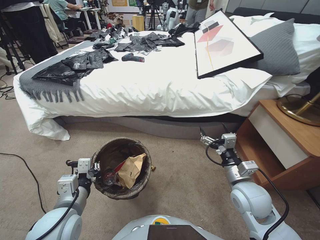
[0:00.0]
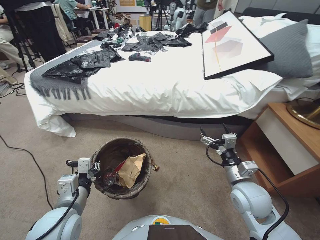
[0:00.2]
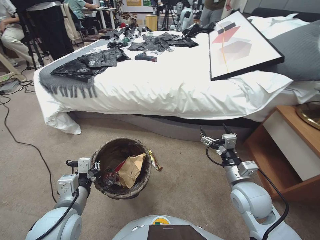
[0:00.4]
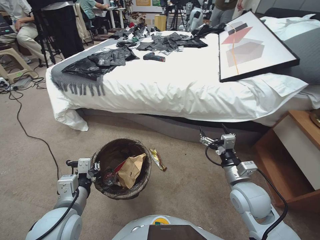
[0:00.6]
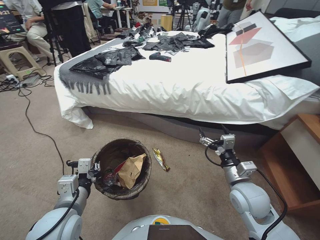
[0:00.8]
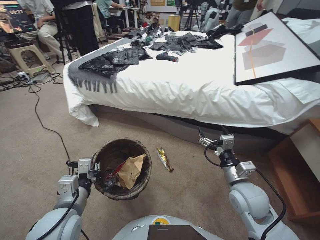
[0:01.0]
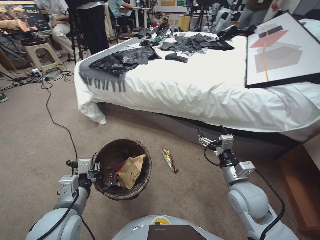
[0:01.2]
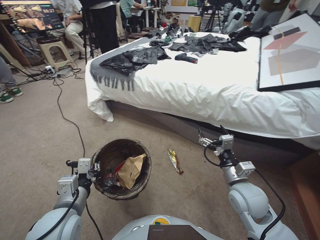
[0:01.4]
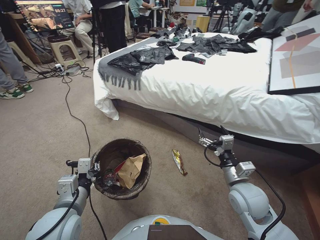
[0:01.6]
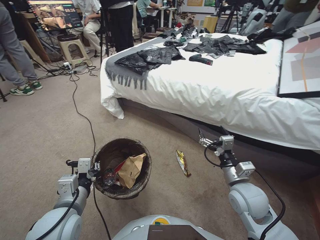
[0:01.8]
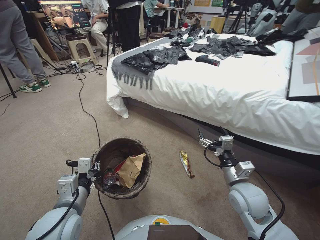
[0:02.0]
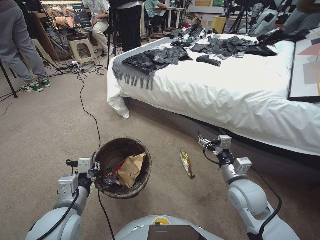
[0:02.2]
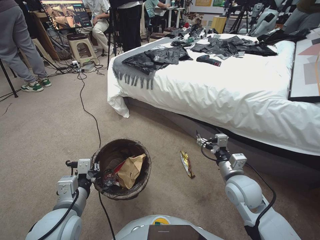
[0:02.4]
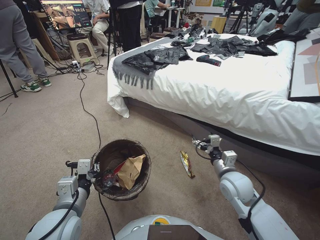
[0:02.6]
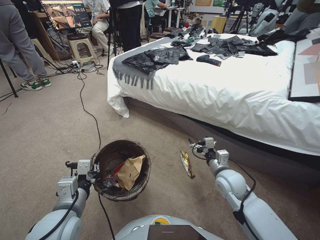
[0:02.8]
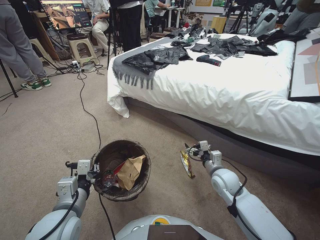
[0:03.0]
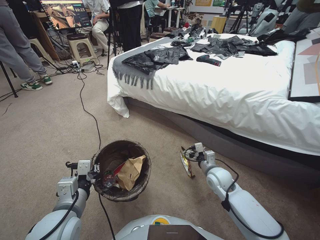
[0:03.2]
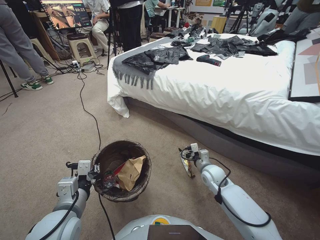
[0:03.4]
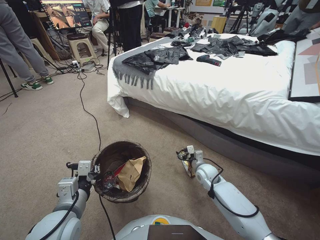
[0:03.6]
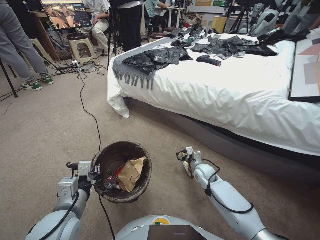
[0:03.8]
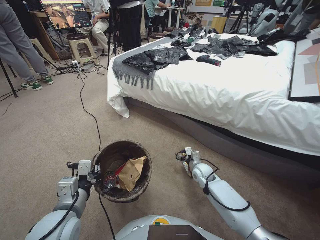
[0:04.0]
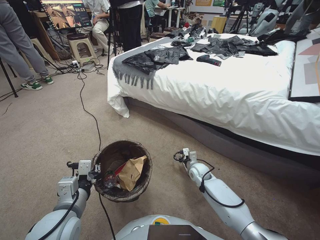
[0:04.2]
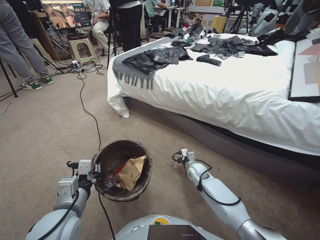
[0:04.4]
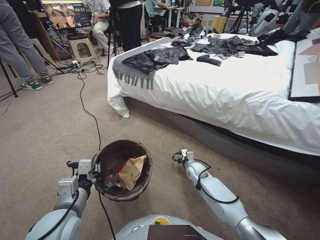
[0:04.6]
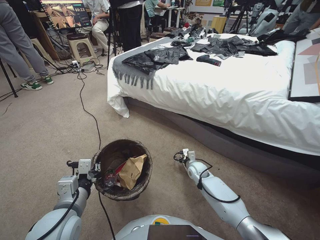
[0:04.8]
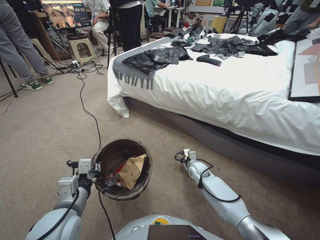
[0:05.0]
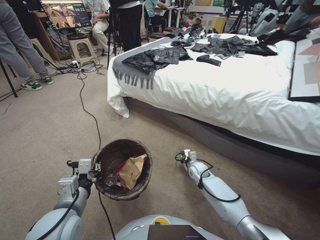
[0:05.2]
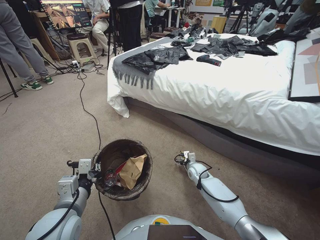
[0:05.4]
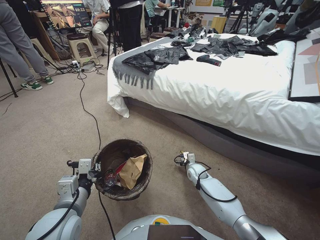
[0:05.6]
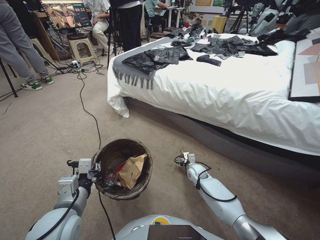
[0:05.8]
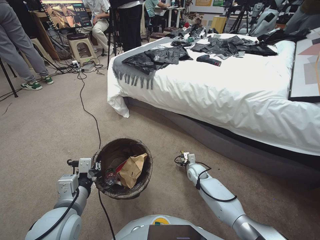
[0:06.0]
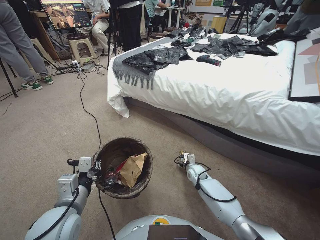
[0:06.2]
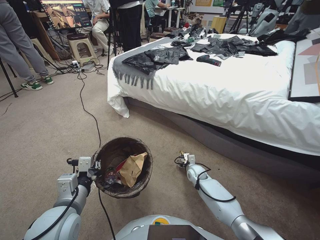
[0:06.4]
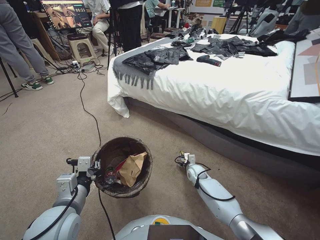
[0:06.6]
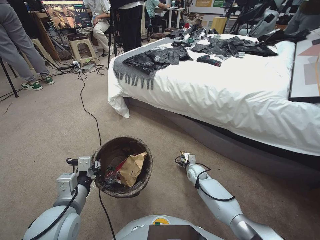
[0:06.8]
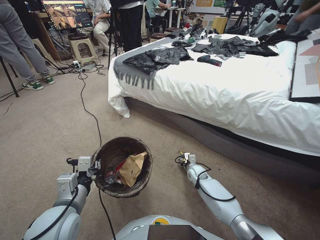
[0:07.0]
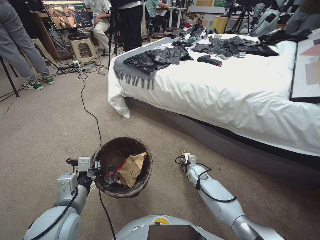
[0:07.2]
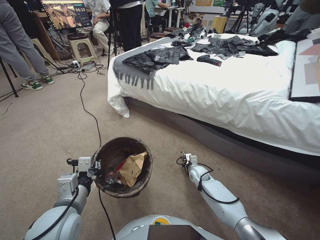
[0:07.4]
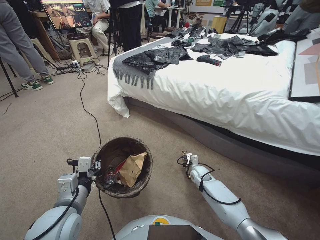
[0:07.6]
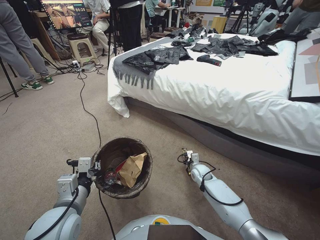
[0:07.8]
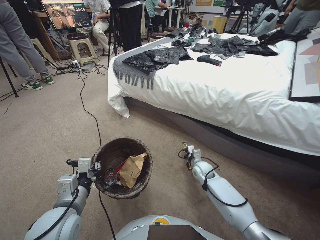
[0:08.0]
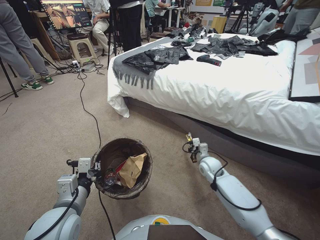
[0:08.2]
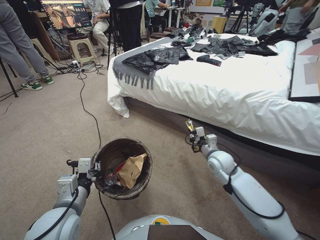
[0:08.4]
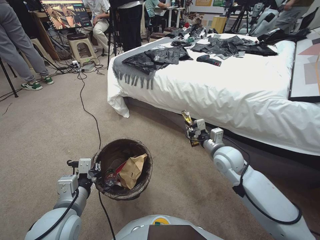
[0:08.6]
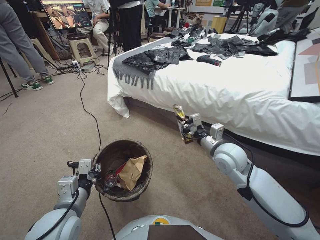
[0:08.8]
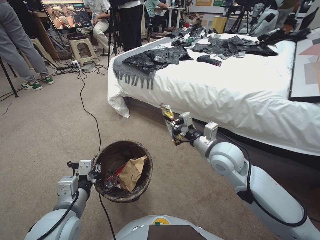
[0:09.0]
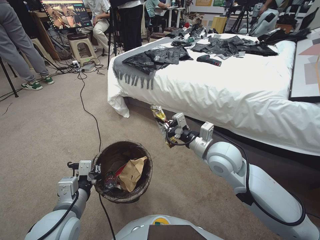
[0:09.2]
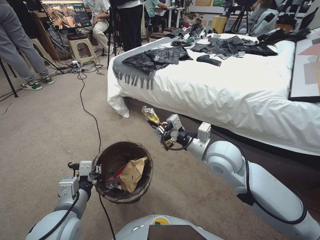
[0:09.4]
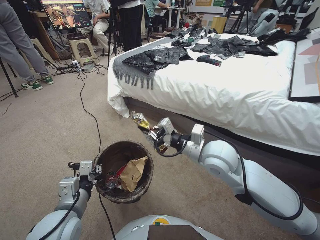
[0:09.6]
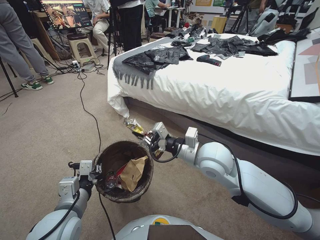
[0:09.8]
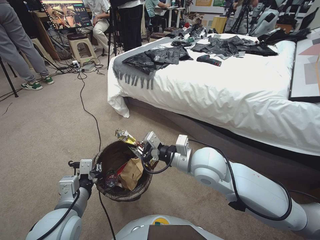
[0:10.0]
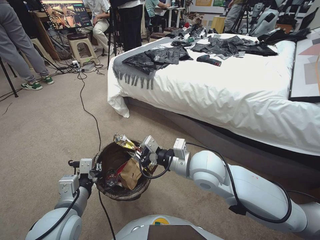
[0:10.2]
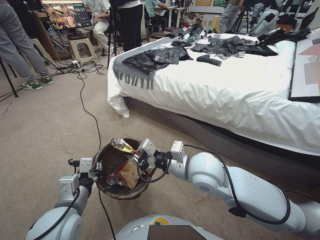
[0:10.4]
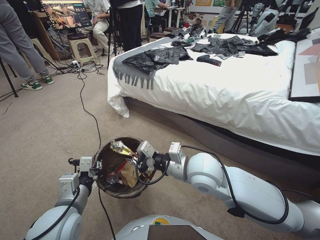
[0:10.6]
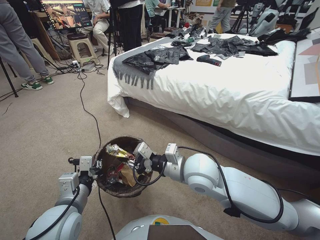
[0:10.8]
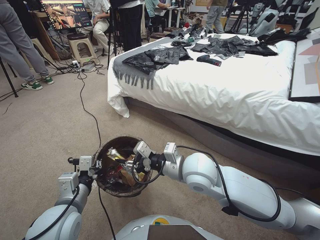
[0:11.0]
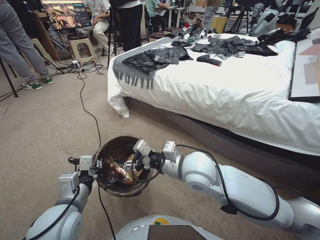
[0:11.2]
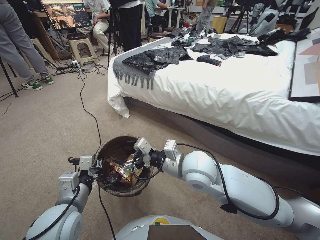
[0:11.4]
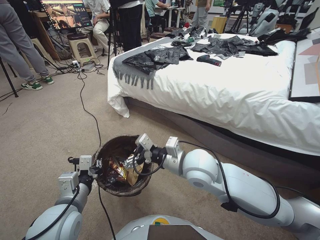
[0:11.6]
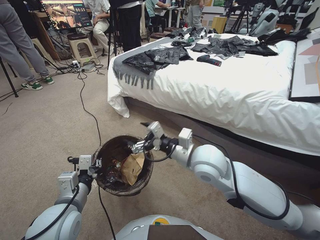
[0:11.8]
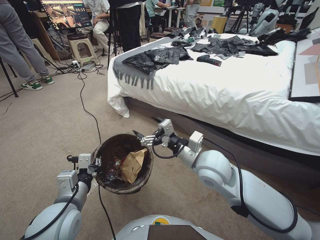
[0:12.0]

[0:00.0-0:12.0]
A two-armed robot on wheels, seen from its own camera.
Task of the whole recording: Pick up the trash bin, then pick up the garbage from the floor and place it into the trash bin.
0:01.6 to 0:03.0: The right gripper heads forward and downward, covering approximately 10 cm.
0:03.0 to 0:04.4: The right gripper moves downward, forward and to the left, roughly 15 cm.
0:04.4 to 0:06.0: The grippers make only small movements.
0:06.0 to 0:07.6: The right gripper closes.
0:07.6 to 0:09.0: The right gripper moves upward, approximately 30 cm.
0:09.0 to 0:10.4: The right gripper heads to the left, covering approximately 10 cm.
0:10.4 to 0:12.0: The right gripper opens its fingers.

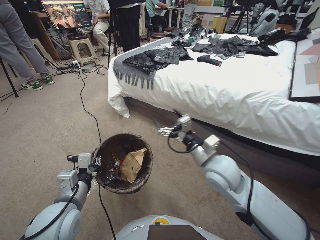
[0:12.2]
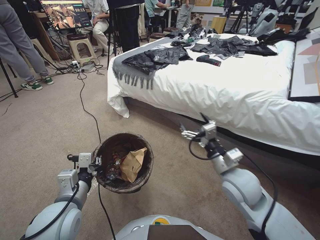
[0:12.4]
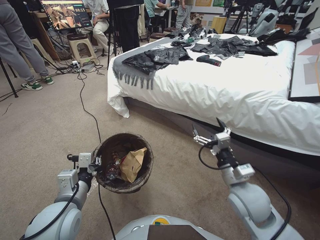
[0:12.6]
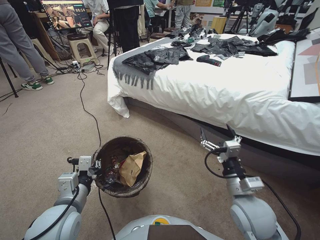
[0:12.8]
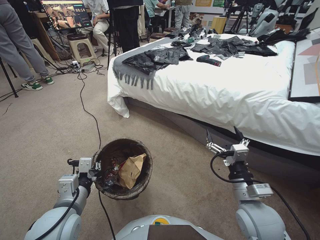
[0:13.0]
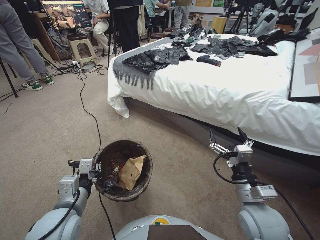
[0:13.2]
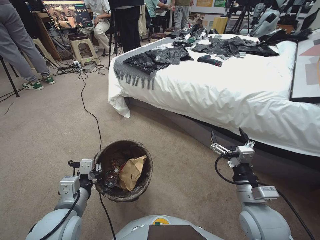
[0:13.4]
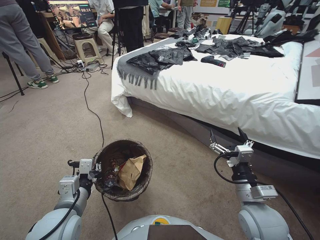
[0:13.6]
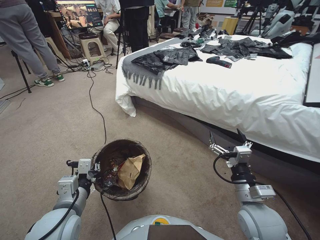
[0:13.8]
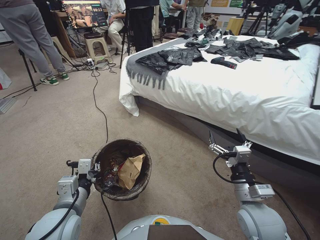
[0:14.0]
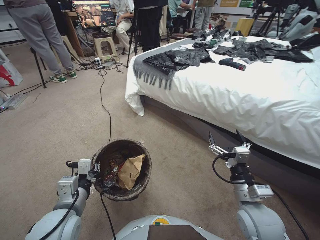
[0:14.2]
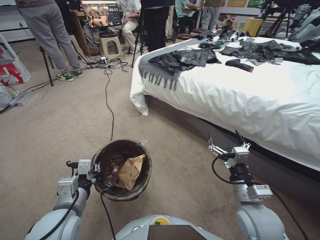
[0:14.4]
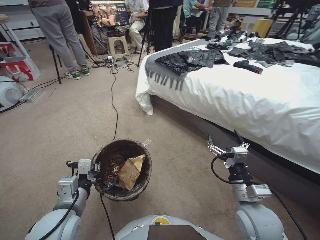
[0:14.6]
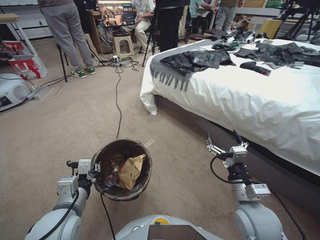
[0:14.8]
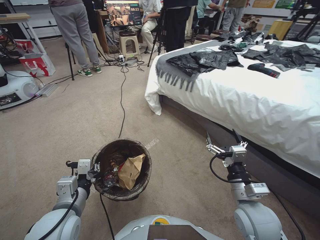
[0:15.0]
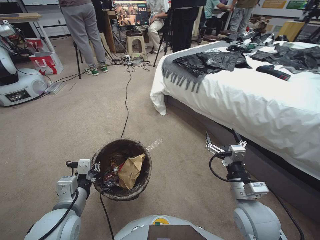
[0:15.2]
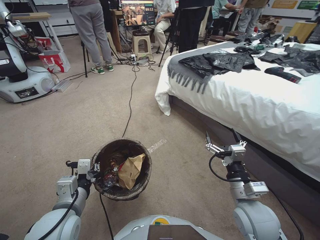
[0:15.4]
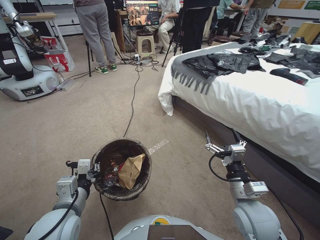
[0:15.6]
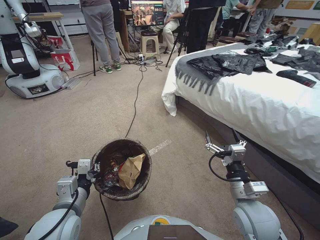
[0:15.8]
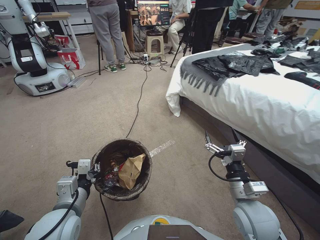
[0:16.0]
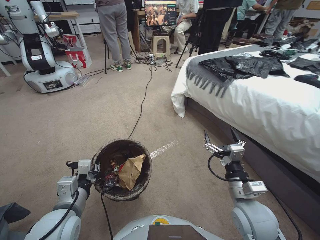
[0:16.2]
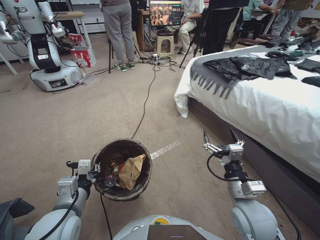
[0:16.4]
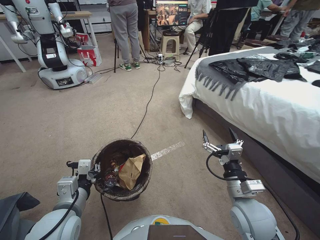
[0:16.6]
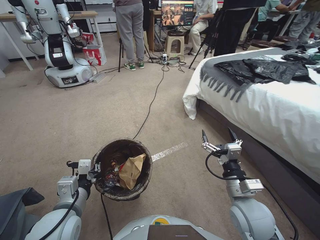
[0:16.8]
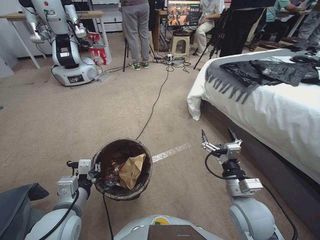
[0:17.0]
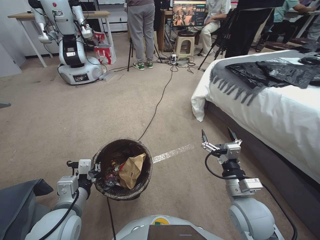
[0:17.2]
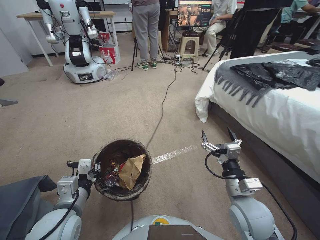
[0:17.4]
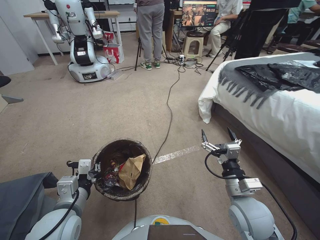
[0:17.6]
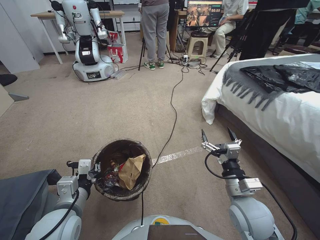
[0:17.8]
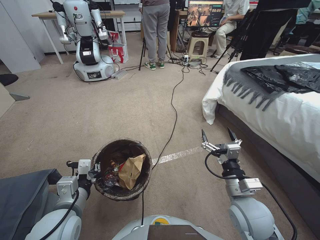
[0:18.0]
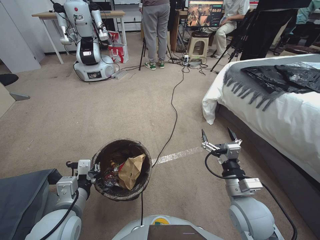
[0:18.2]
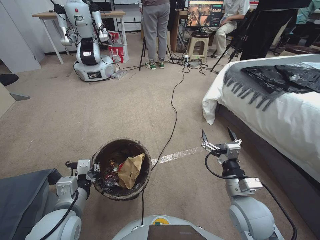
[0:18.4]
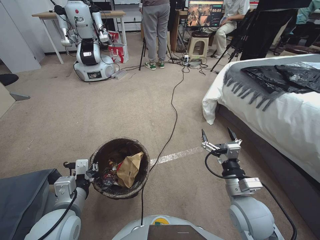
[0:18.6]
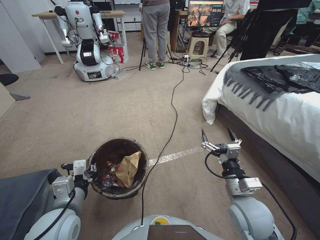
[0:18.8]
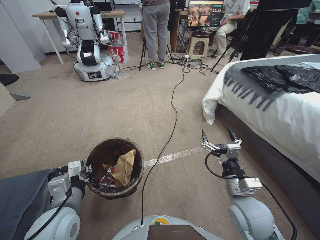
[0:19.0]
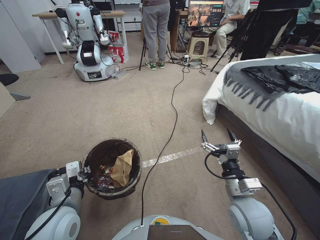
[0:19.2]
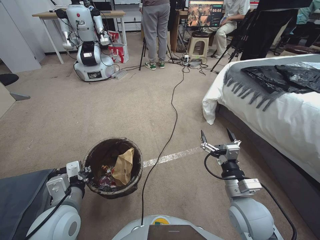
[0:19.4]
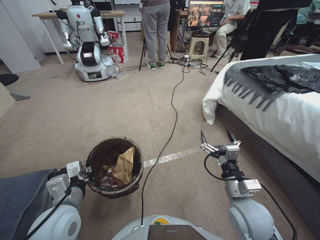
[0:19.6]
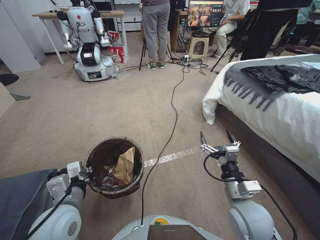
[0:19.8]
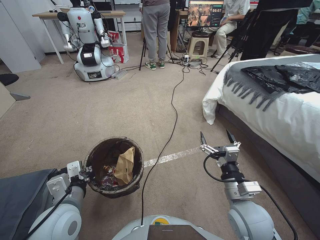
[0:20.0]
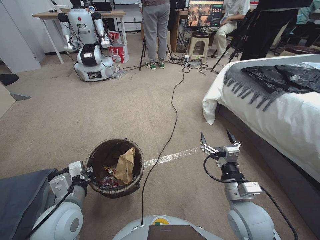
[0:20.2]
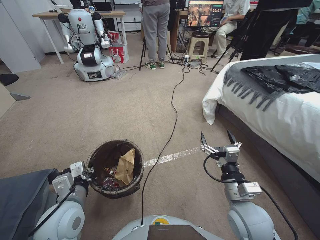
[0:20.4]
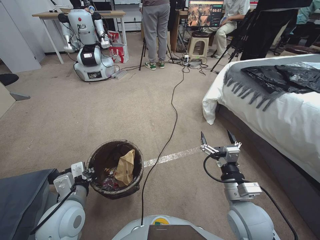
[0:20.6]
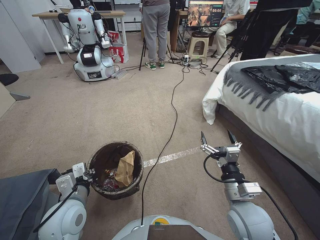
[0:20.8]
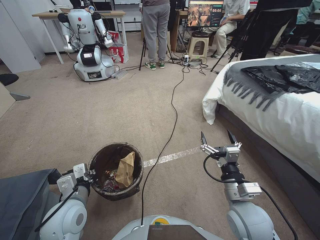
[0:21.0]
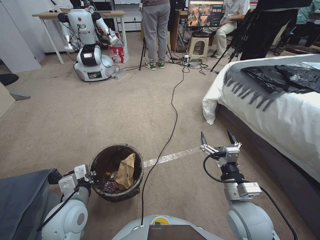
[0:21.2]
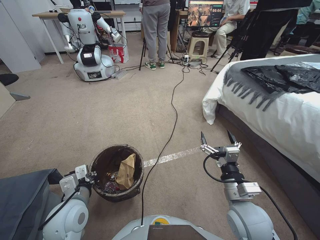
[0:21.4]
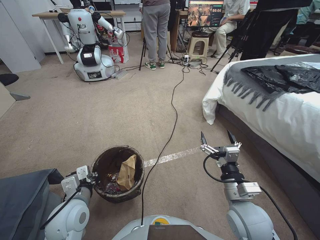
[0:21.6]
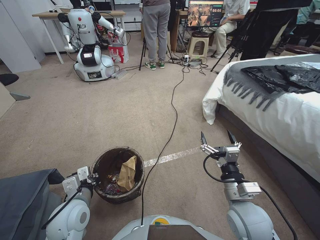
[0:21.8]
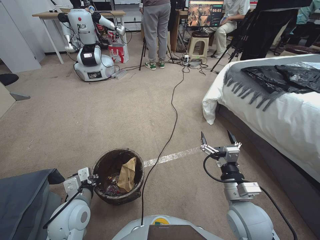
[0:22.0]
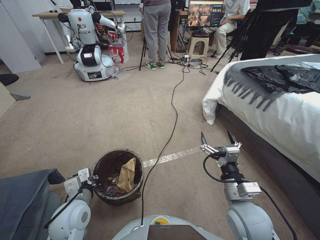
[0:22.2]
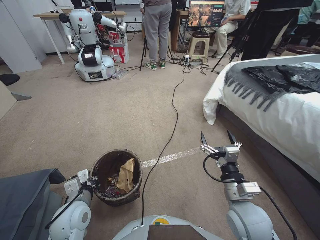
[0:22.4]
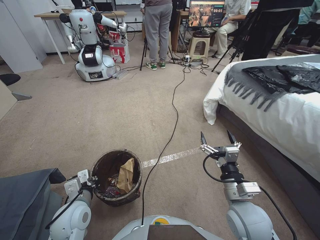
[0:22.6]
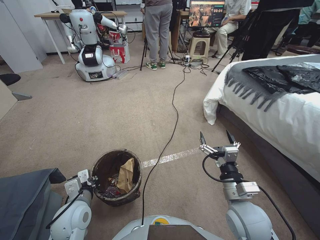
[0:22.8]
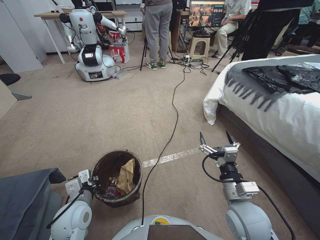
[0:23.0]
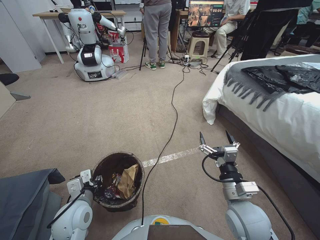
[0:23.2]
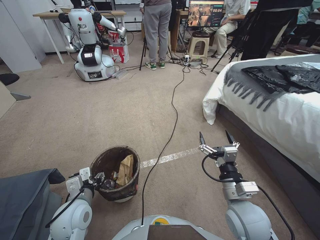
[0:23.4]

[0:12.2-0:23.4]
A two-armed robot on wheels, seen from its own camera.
Task of the whole recording: Pick up the trash bin, then pick up the garbage from the floor and place it into the trash bin.
0:12.2 to 0:13.8: The right gripper heads to the right, backward and downward, covering approximately 15 cm.
0:18.6 to 0:20.2: The grippers stay close to where they were, moving slightly.
0:20.2 to 0:21.8: The left gripper travels downward by roughly 5 cm.
0:21.8 to 0:23.4: The left gripper opens its fingers.
